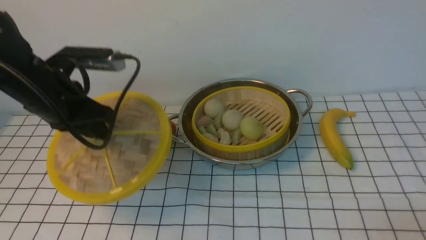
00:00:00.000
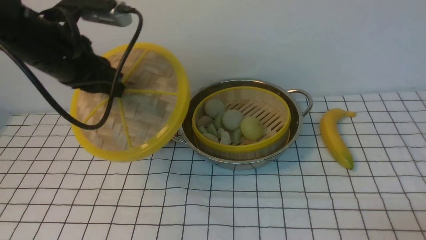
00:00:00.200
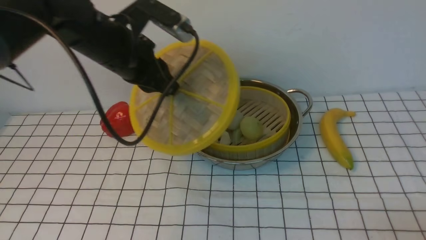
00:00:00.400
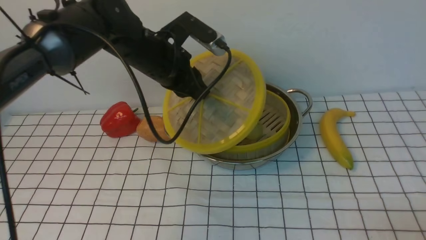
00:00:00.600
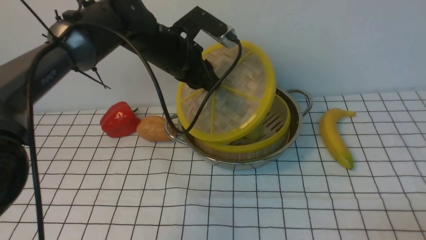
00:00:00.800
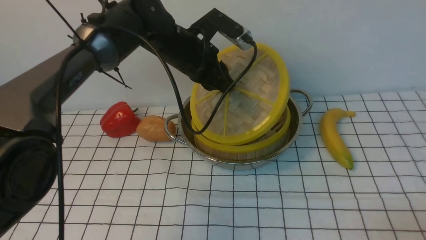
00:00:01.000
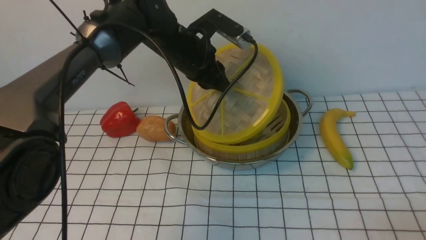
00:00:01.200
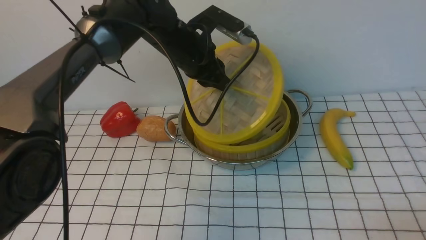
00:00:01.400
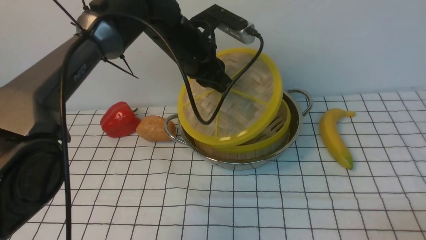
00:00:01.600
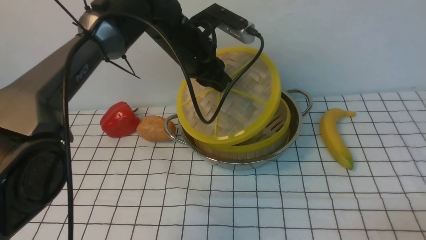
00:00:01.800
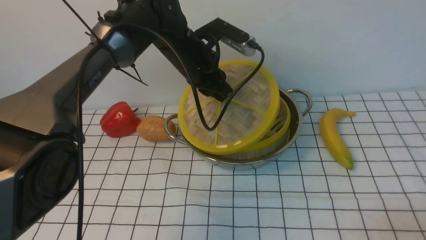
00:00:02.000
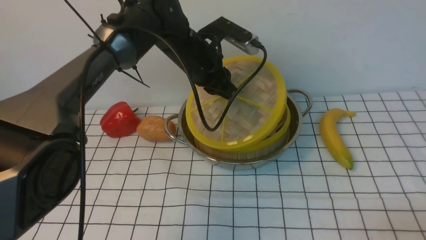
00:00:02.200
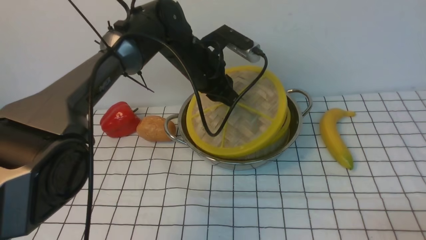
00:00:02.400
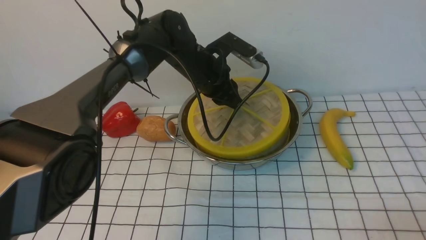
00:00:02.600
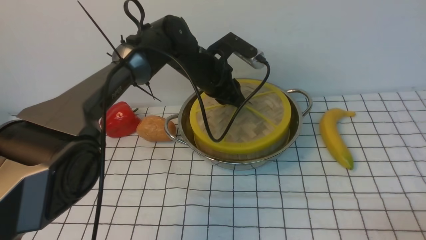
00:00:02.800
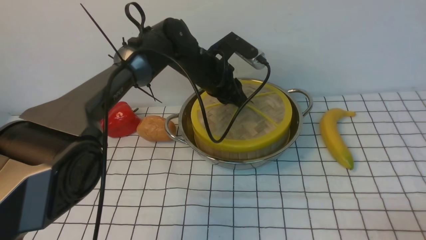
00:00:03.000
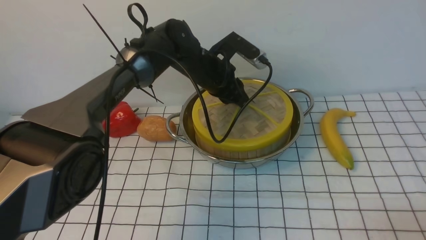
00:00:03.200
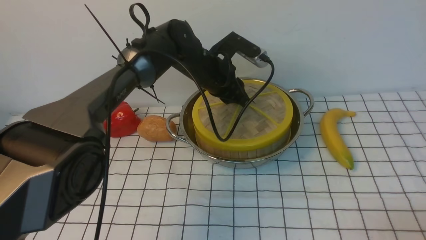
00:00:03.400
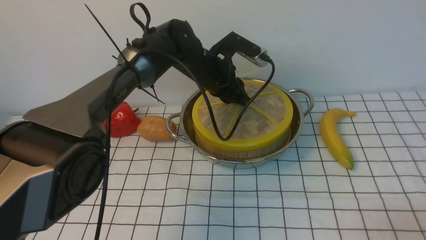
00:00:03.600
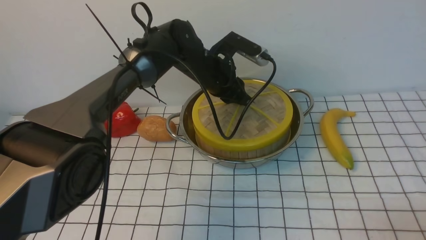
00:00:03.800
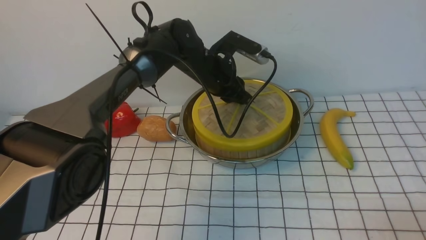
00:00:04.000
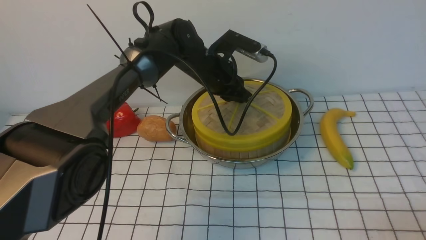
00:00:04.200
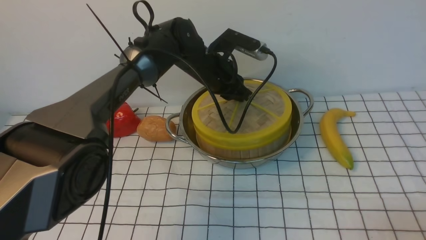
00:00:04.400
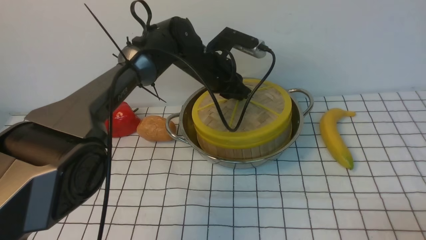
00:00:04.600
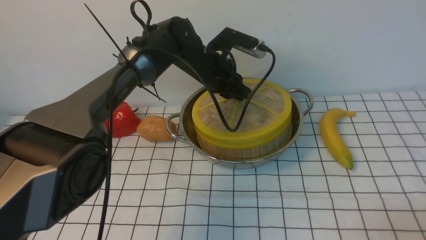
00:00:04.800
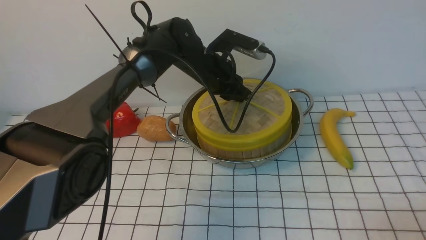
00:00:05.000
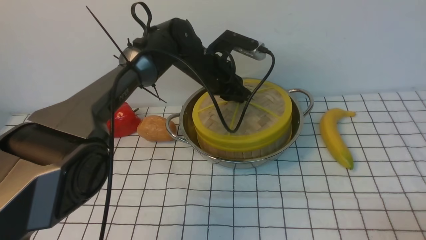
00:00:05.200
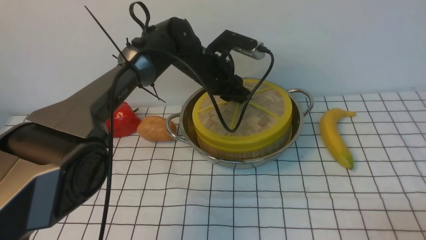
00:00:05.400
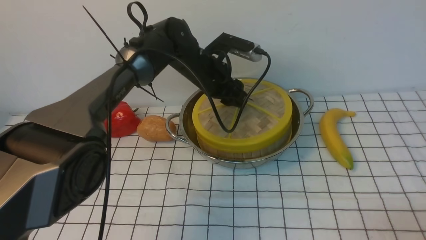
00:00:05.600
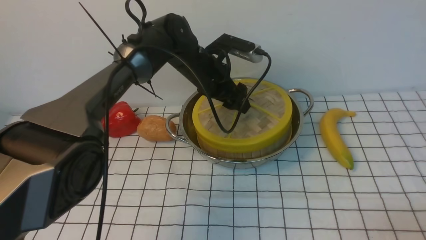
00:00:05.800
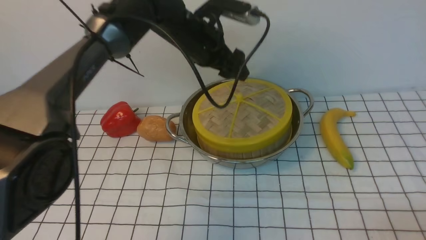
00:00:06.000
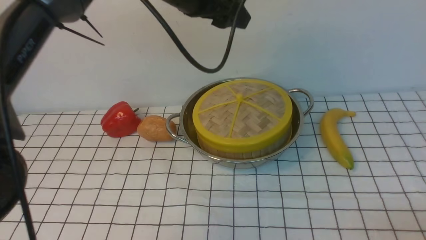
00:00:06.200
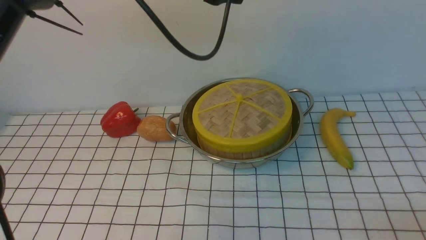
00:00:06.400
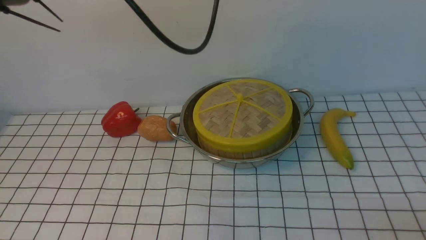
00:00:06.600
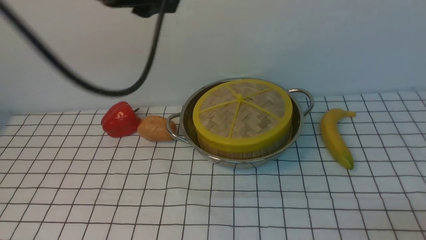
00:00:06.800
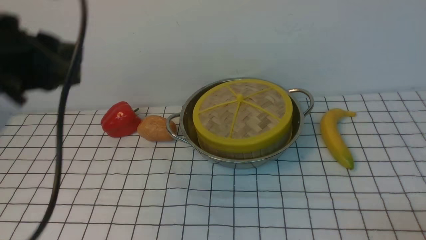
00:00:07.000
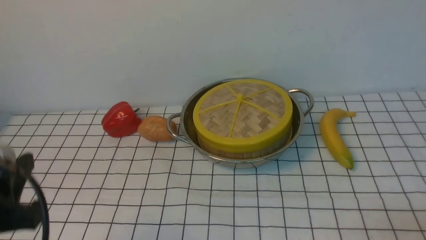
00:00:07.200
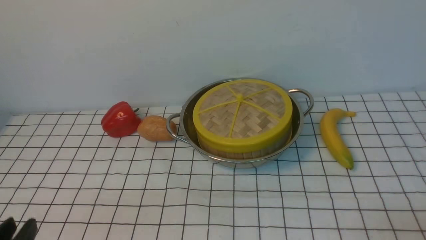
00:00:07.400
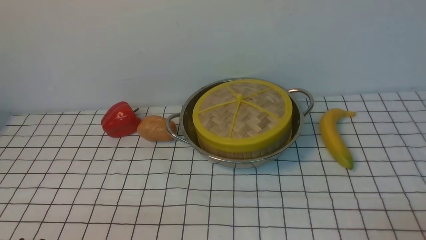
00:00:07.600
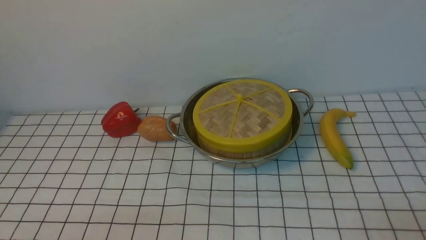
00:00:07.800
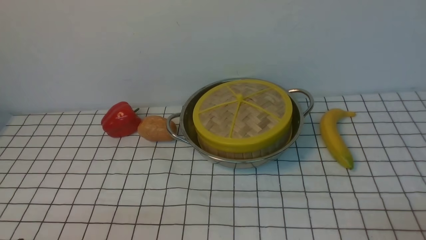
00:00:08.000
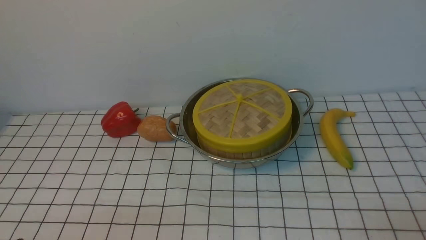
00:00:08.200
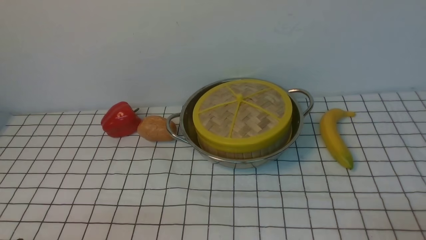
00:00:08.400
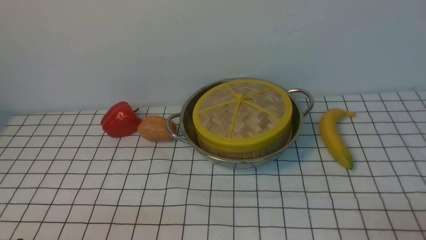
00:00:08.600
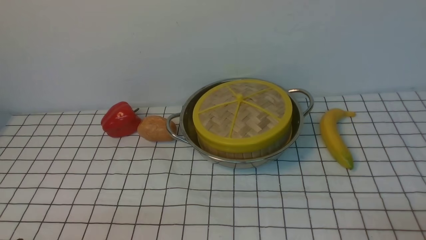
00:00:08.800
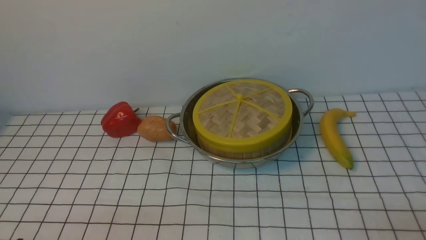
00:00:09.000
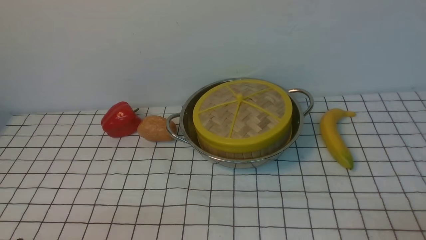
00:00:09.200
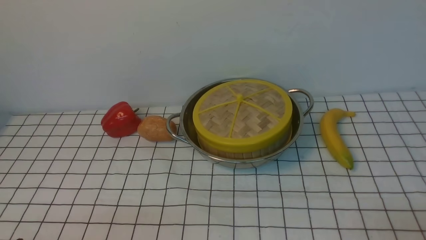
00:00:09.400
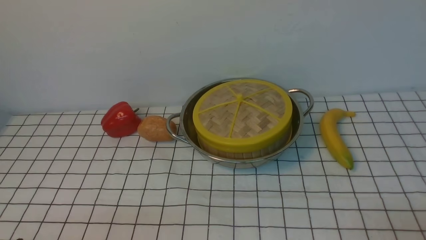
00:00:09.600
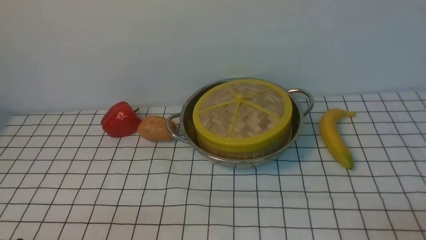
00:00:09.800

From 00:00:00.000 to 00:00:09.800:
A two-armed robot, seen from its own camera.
Task of the whole recording: place the steamer in the pot on the white tablecloth, and put the lid on the steamer.
Step, from 00:00:00.000 to 00:00:06.000: use the left arm to place the steamer lid on the steamer.
From 00:00:00.000 to 00:00:01.400: The left gripper moves to the right and forward, approximately 20 cm.
From 00:00:01.400 to 00:00:02.800: The left gripper shifts some 5 cm downward.
From 00:00:02.800 to 00:00:04.200: The grippers move only a little.
From 00:00:04.200 to 00:00:05.600: The left gripper opens up.
From 00:00:05.600 to 00:00:07.000: The left gripper moves backward, to the left and upward, roughly 35 cm.
From 00:00:07.000 to 00:00:08.400: The left gripper goes some 25 cm downward and backward.
From 00:00:08.400 to 00:00:09.800: Both grippers stay put.
